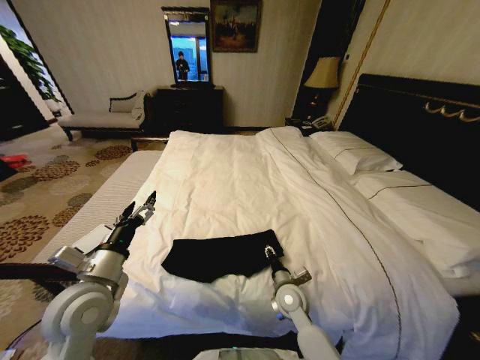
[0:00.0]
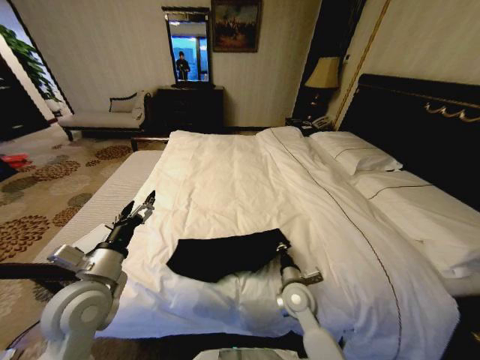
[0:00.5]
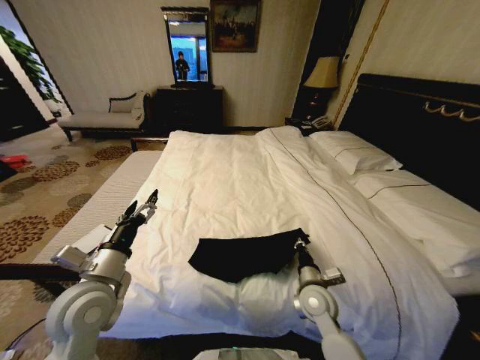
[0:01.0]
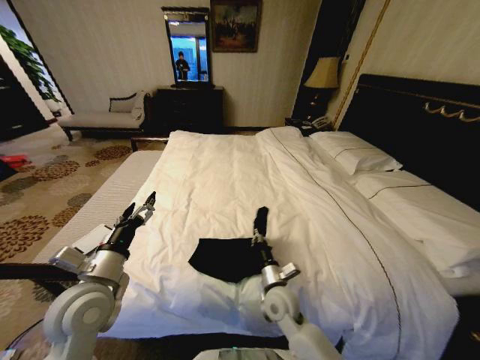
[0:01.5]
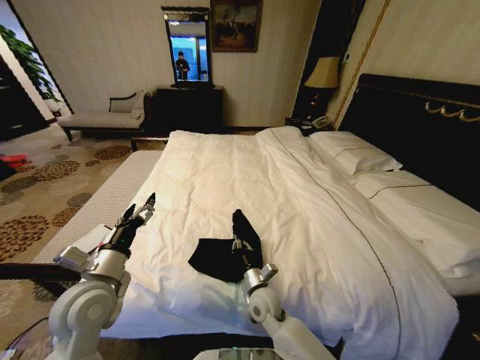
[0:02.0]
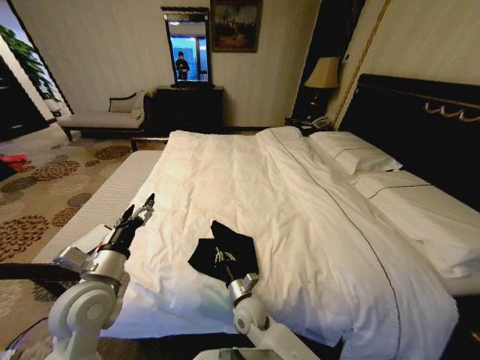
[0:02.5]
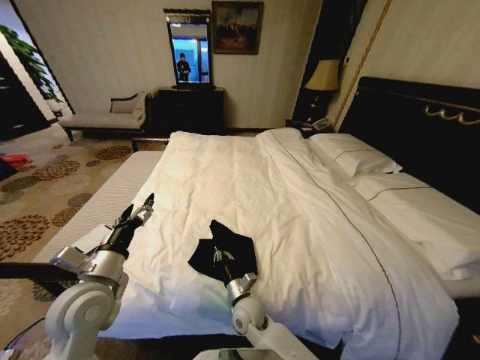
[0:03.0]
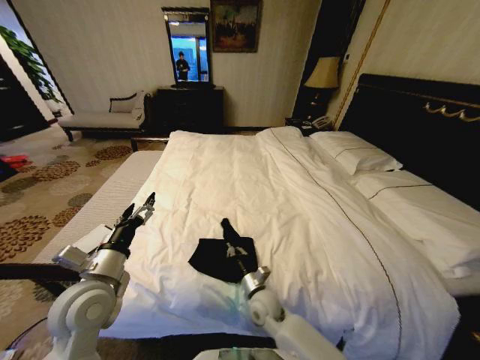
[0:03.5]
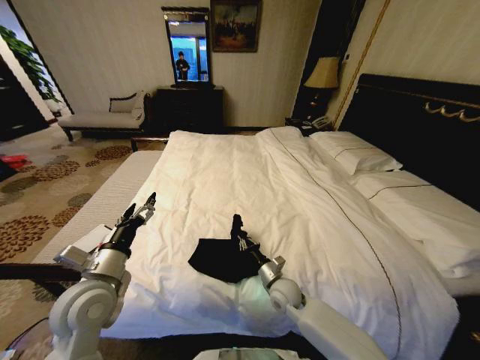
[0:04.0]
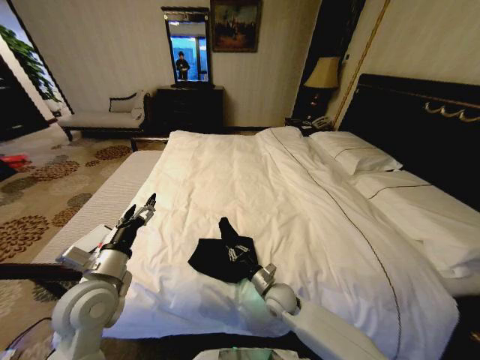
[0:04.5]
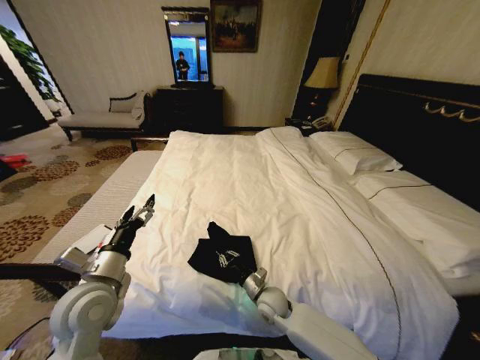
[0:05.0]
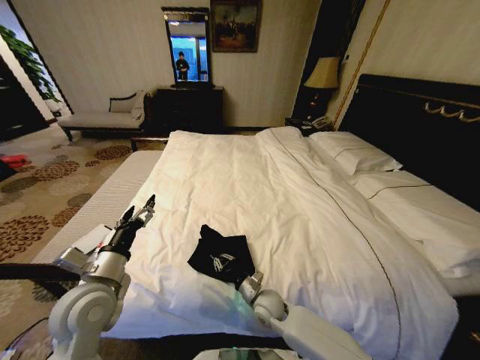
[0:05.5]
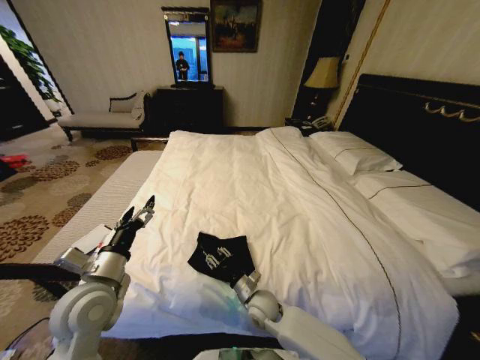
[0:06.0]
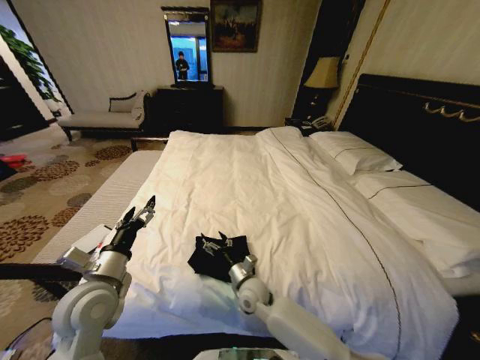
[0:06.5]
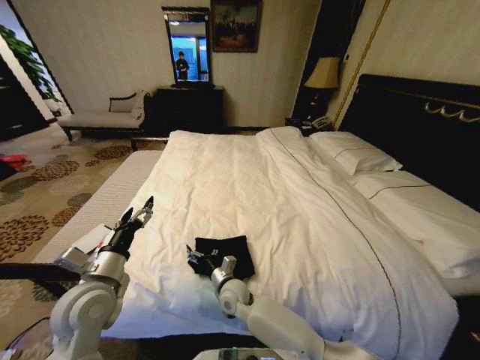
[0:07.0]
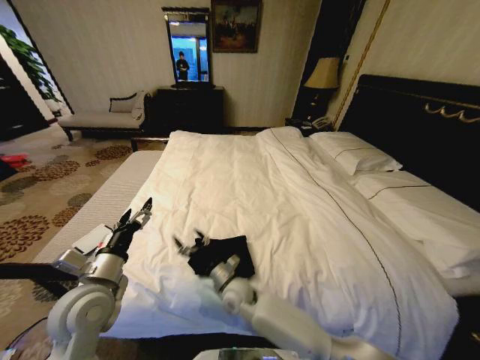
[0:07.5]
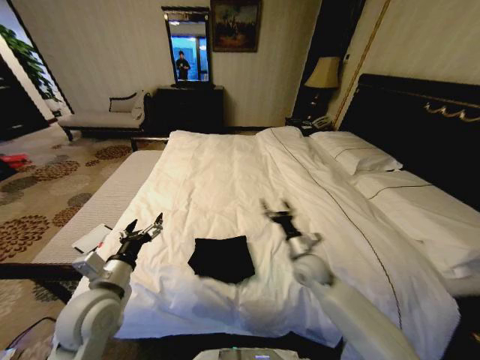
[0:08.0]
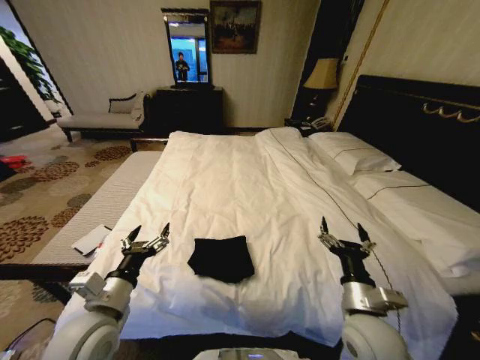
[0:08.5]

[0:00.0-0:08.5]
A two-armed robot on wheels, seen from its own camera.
Task of the whole recording: Fold the clothes on the bed.
0:00.0 to 0:02.0: The right gripper goes roughly 5 cm to the left, and closes up.
0:02.0 to 0:04.0: The right gripper travels to the right by approximately 5 cm.
0:04.0 to 0:06.5: The right gripper moves to the left, some 10 cm, and opens up.
0:06.5 to 0:08.5: The right gripper is displaced to the right, upward and backward by about 25 cm. The left gripper goes about 5 cm backward.
